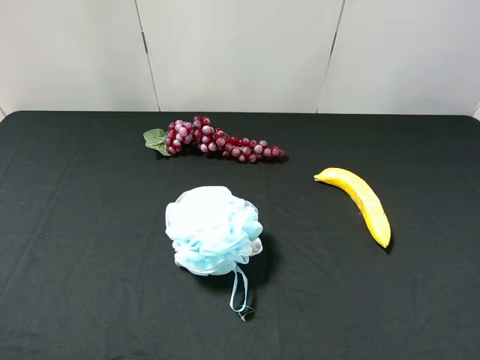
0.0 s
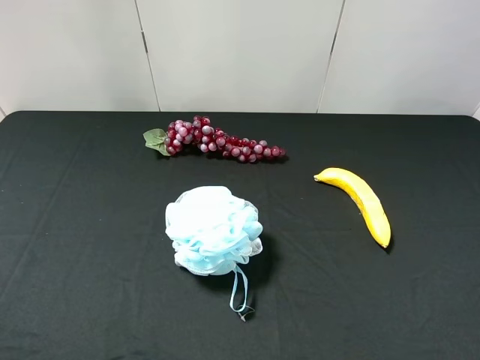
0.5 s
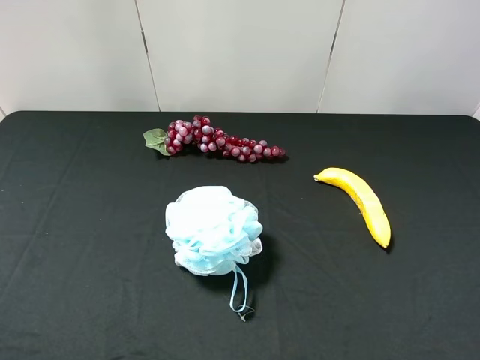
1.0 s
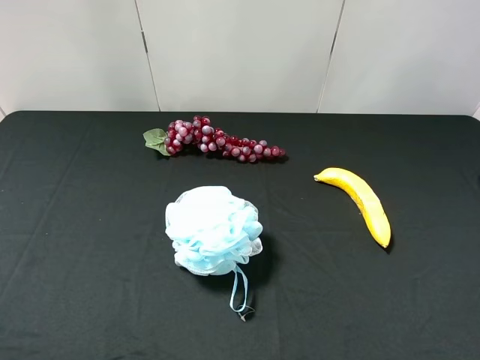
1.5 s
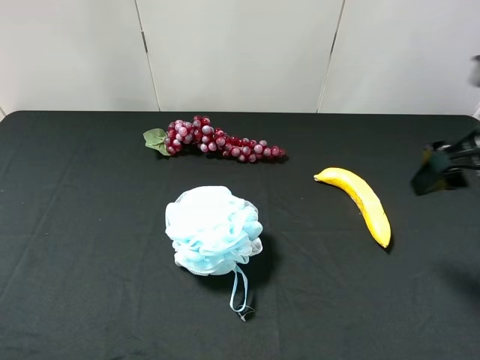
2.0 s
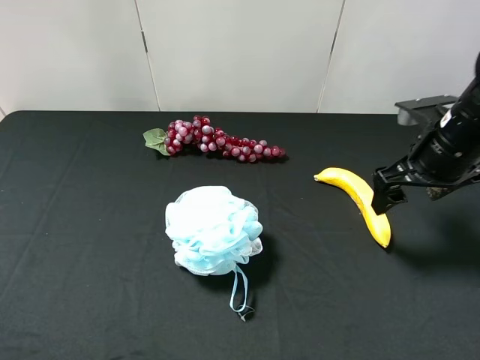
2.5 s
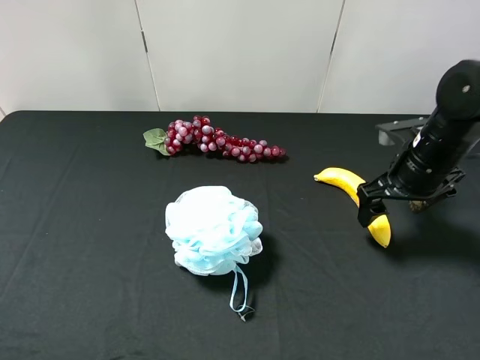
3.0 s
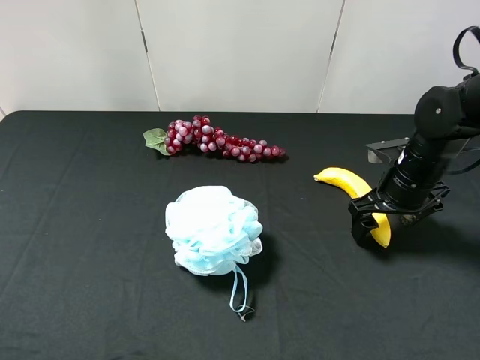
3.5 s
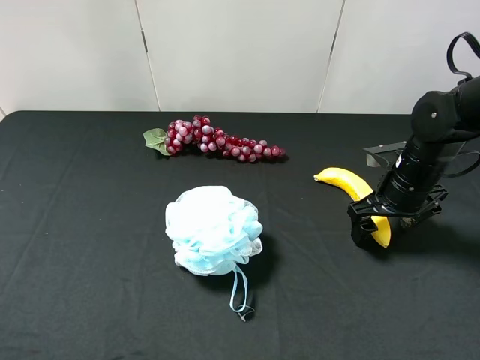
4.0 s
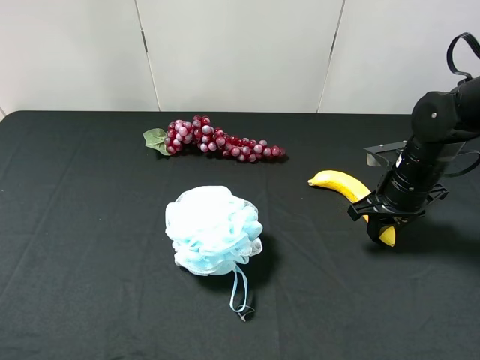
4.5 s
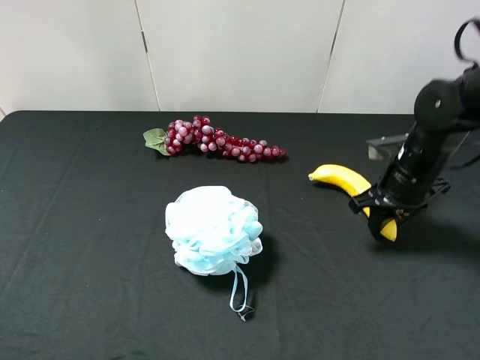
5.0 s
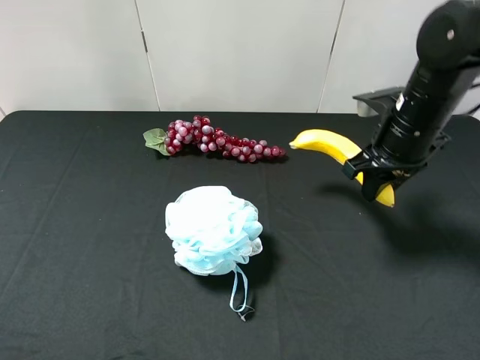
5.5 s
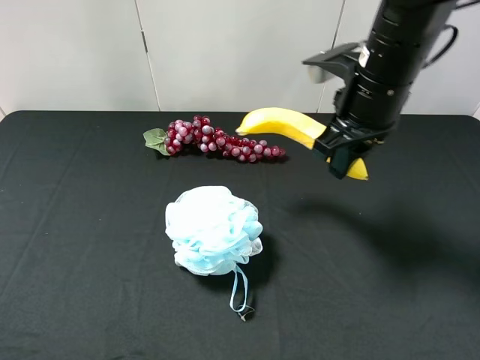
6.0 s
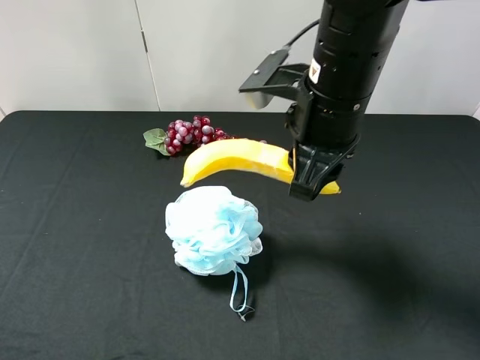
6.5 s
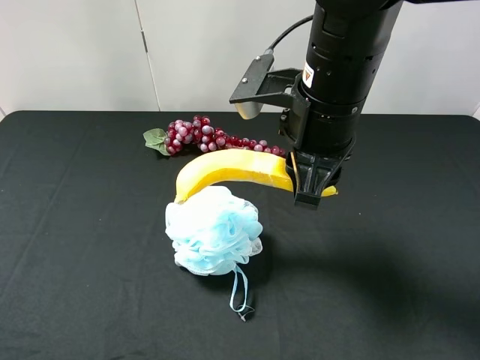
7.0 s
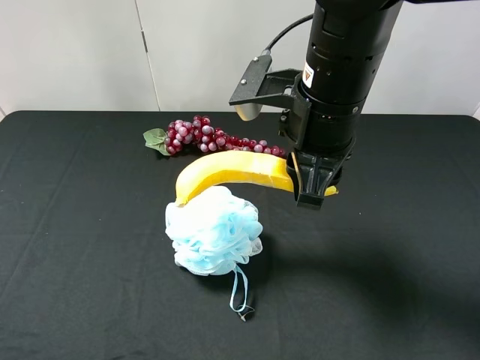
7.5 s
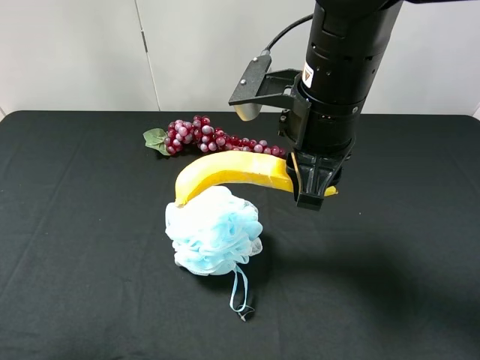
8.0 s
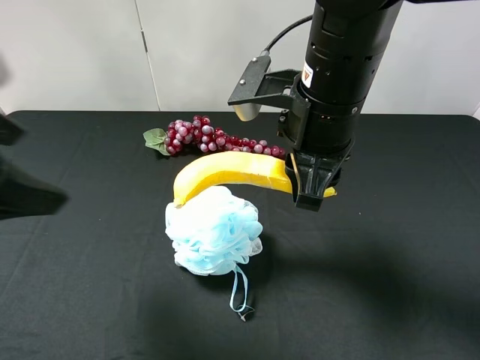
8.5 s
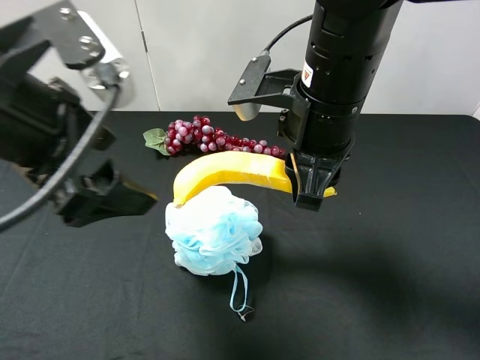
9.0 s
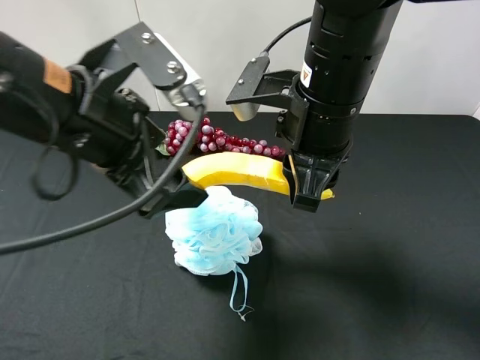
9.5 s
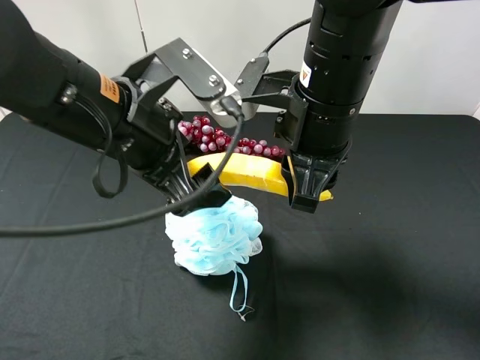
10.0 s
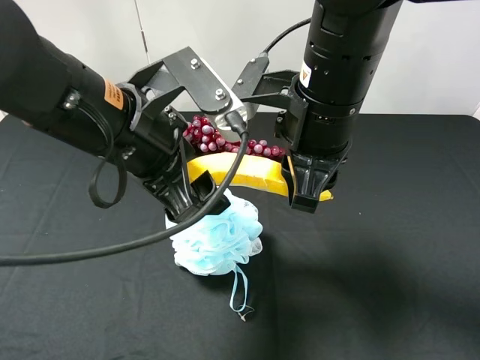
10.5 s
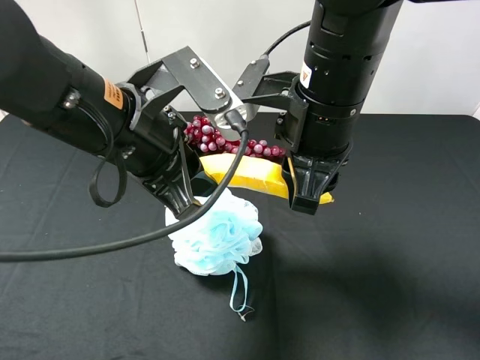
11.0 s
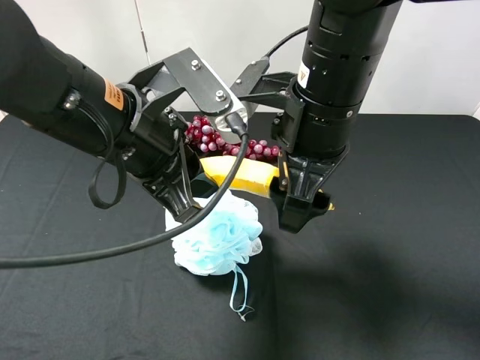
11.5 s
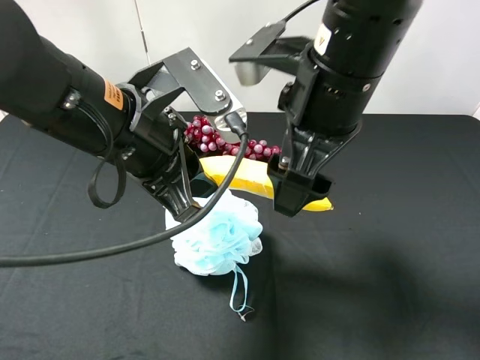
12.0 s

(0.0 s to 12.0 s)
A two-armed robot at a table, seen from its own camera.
Task of the whole recording: use the right gripper to pick up the item and transfer it from the right gripper to the left gripper.
Step, 0.0 s - 4.5 s: Use the right gripper to grab the banana on the right side of the table.
Step, 5.0 s - 11.5 s: Pass the banana to the left gripper.
0.0 s - 2.0 s: The right gripper travels forward by some 20 cm.
2.0 s - 4.0 s: The right gripper goes some 15 cm downward and forward.
4.0 s - 6.0 s: The right gripper goes about 20 cm upward and to the left, and closes.
6.0 s - 8.0 s: The right gripper travels to the left and backward by approximately 10 cm. Meanwhile the left gripper travels forward and upward by about 10 cm.
8.0 s - 10.0 s: The left gripper travels to the right, forward and downward by about 25 cm.
10.0 s - 12.0 s: The left gripper closes its fingers. Meanwhile the right gripper opens.

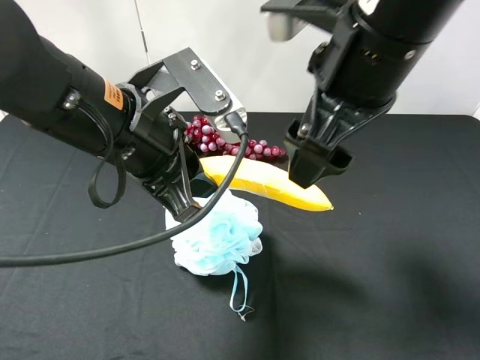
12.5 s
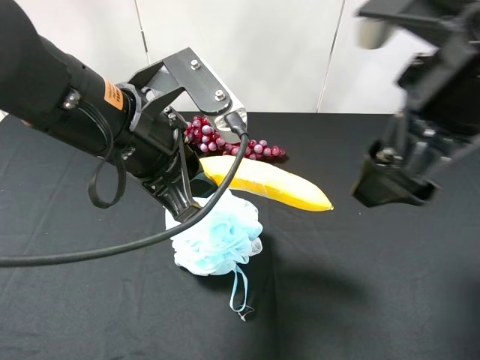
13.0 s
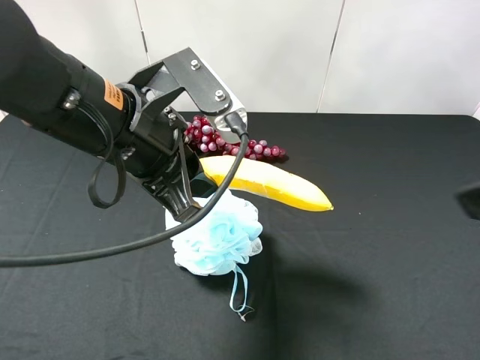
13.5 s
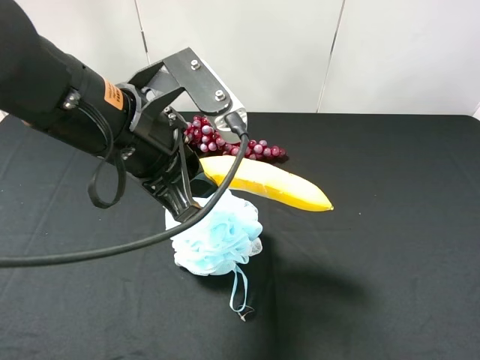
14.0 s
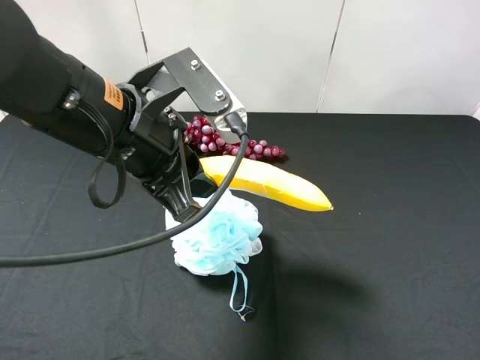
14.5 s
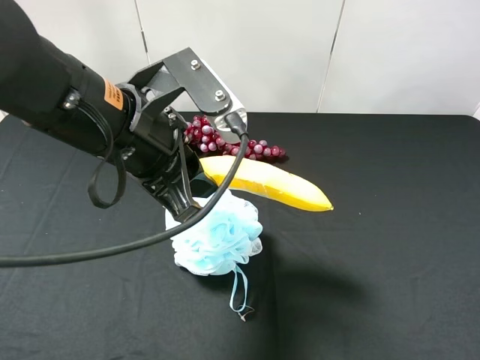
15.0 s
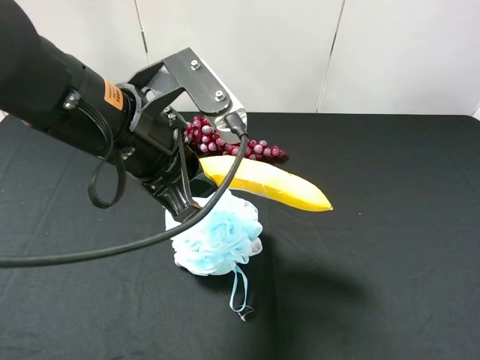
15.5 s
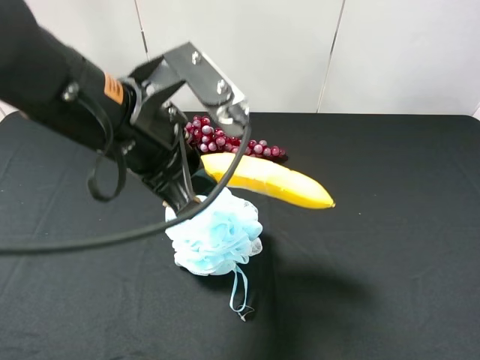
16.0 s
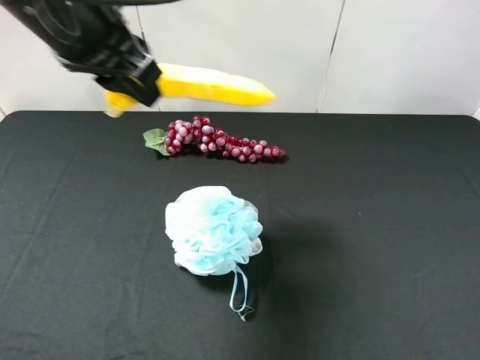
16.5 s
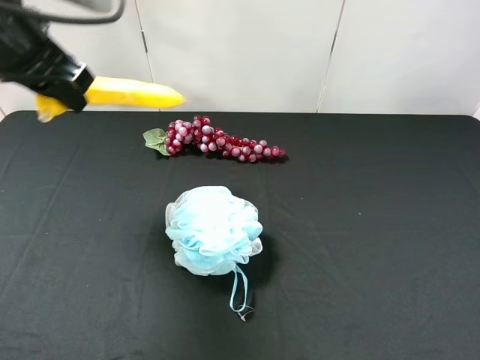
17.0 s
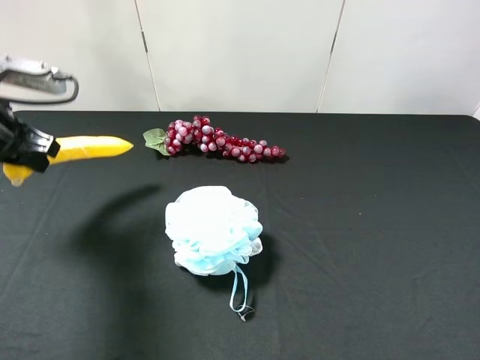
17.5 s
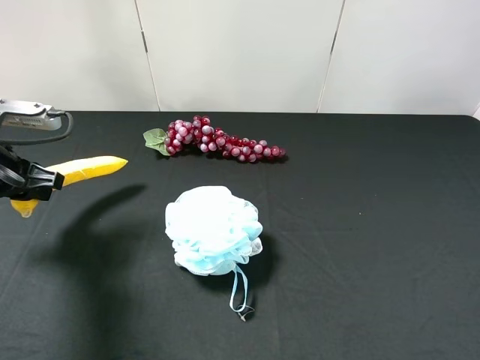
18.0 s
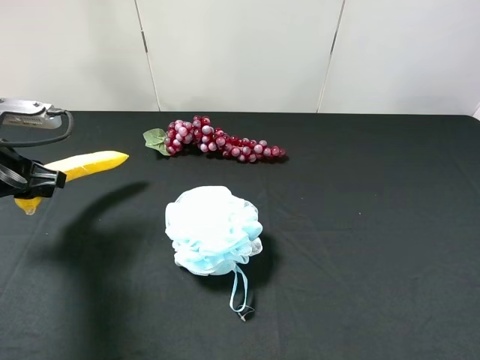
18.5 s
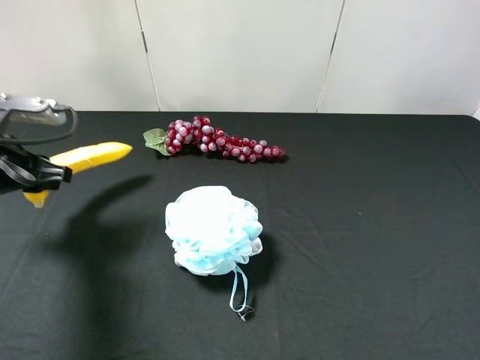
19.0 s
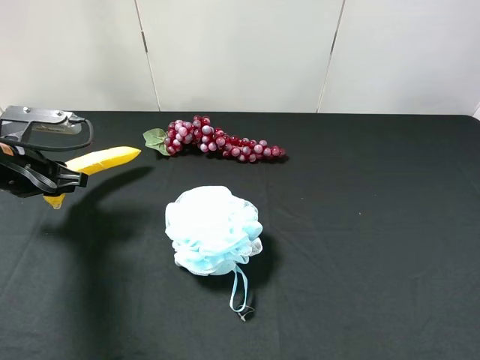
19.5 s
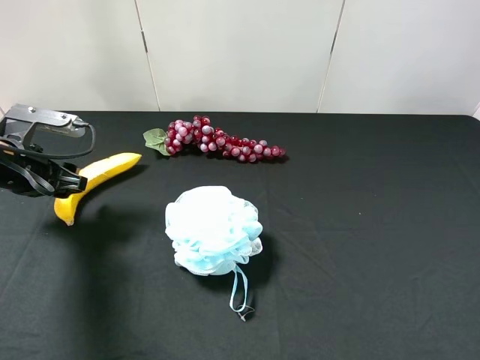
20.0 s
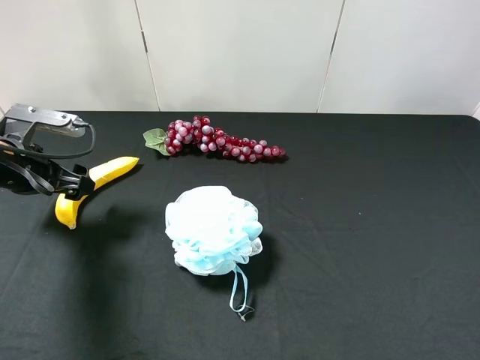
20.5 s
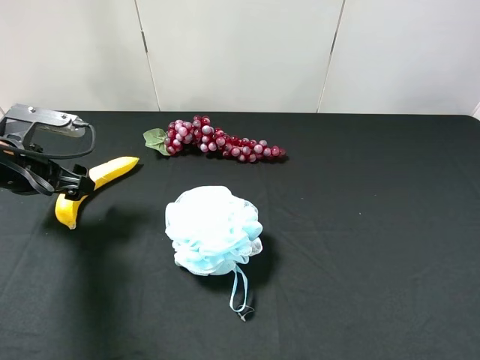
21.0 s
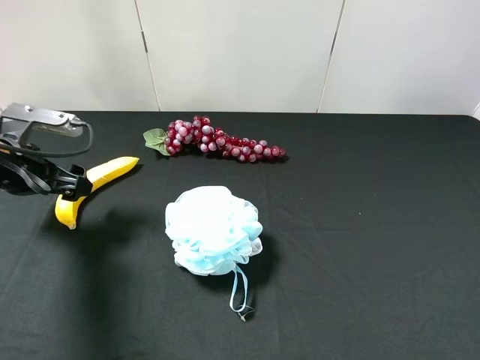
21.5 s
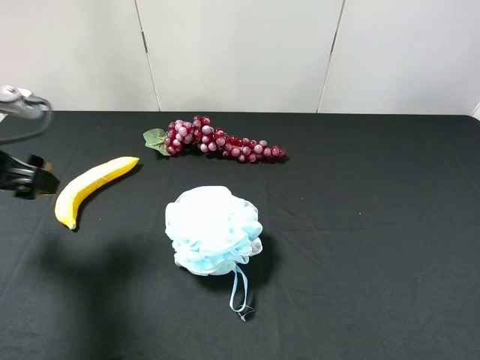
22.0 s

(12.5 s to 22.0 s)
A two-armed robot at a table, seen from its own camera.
Task of the whole recording: use the right gripper to pick up the item and transfer it from the right gripper to the left gripper.
Step, 12.5 s - 20.0 s: The left gripper places banana on the left side of the table.
12.5 s - 14.5 s: The right gripper moves to the right and backward, approximately 25 cm.
14.5 s - 16.5 s: The left gripper heads upward, covering some 10 cm.
16.5 s - 18.0 s: The left gripper is displaced downward and to the left by some 25 cm.
18.0 s - 20.0 s: The left gripper opens its fingers.
20.0 s - 22.0 s: The left gripper heads upward and backward, covering some 10 cm.

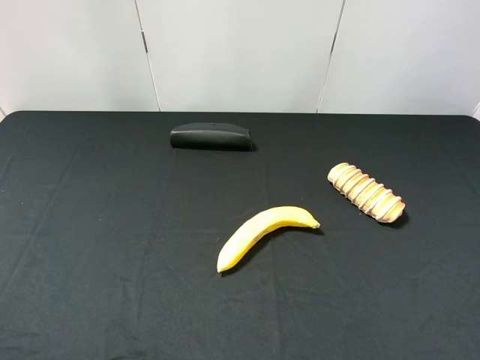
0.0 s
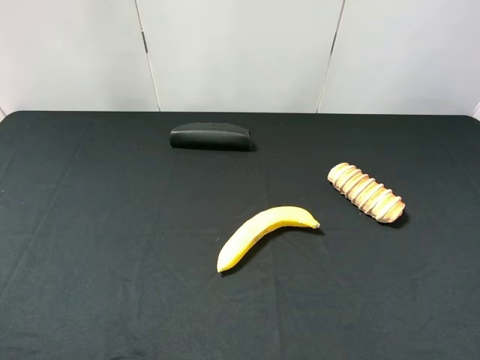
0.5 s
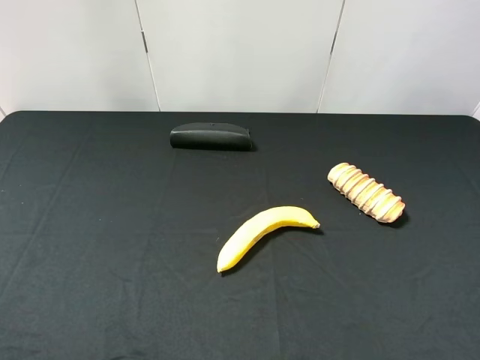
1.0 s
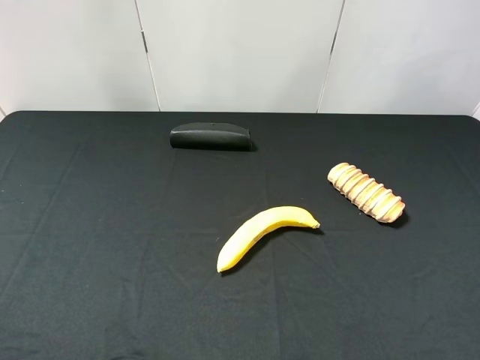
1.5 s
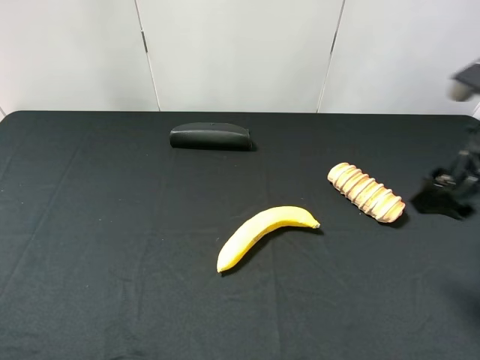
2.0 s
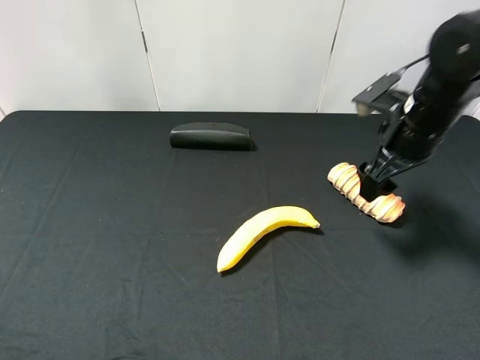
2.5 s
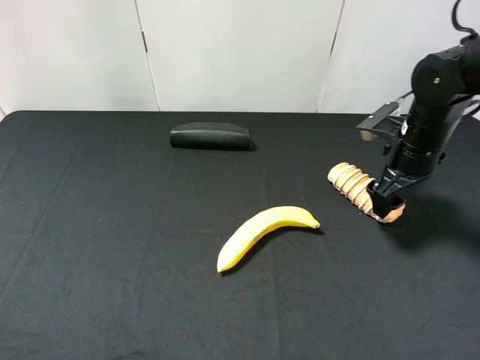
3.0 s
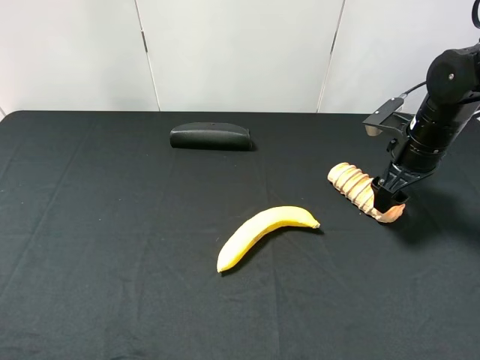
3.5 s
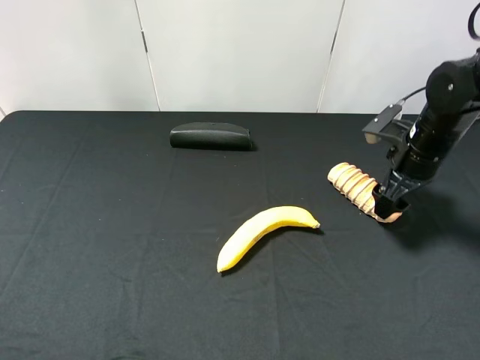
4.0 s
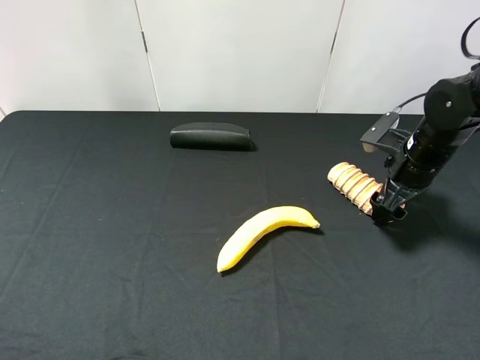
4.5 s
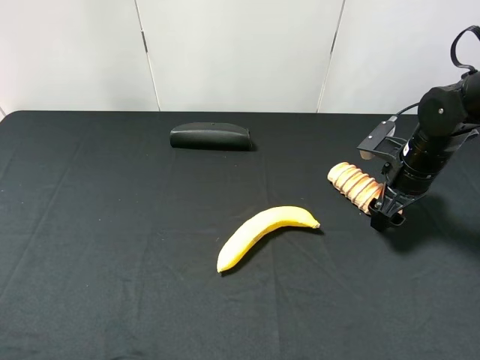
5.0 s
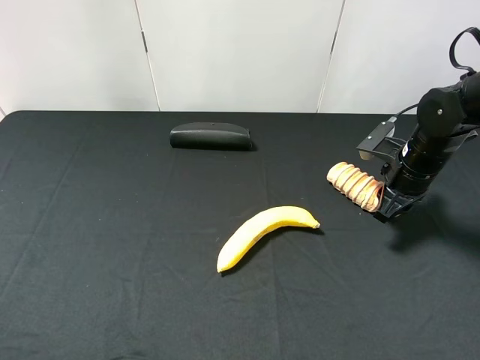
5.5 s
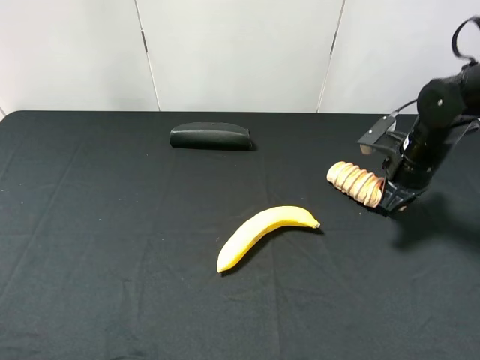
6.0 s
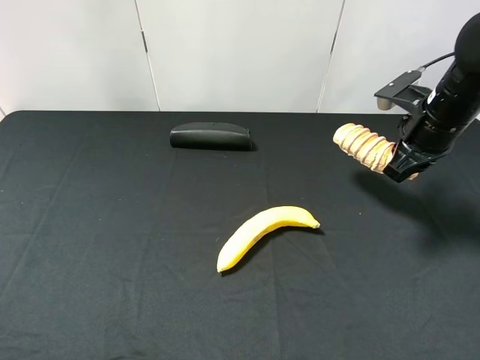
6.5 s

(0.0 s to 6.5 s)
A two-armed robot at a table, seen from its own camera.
Task of the whole recording: use the right gripper to pick up the item and transfer it from the right gripper to the left gripper.
Step, 0.0 s - 5.5 s: Use the right gripper to grab the bread on the right side of the table.
0.0 s - 2.0 s: The right gripper is displaced forward by approximately 20 cm.
2.0 s - 4.5 s: The right gripper goes approximately 20 cm downward and forward.
4.5 s - 6.5 s: The right gripper travels upward by approximately 10 cm, and closes up.
